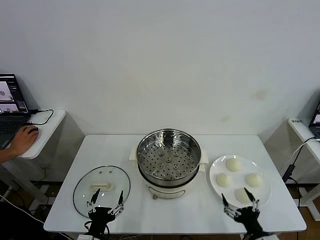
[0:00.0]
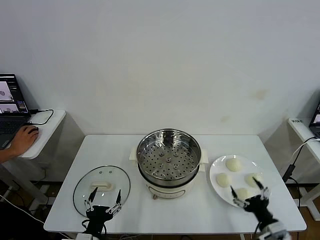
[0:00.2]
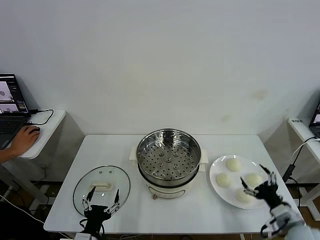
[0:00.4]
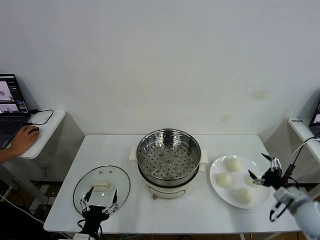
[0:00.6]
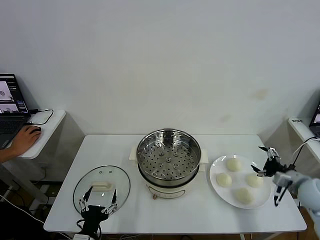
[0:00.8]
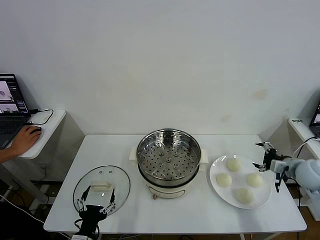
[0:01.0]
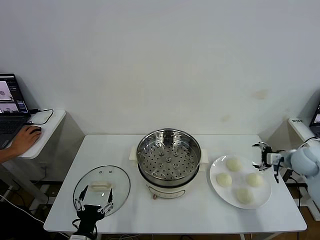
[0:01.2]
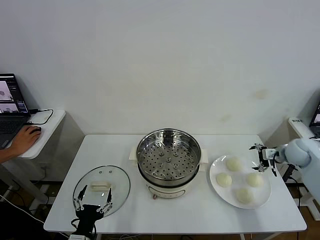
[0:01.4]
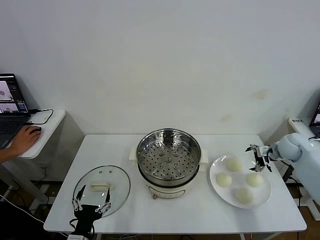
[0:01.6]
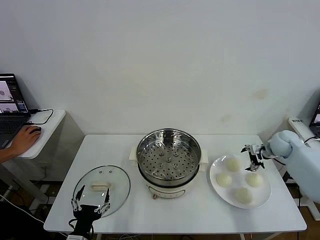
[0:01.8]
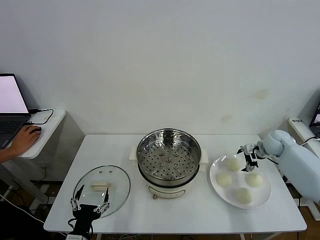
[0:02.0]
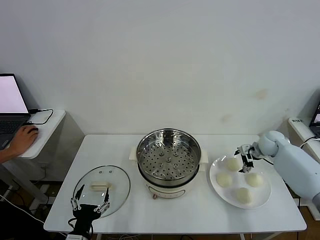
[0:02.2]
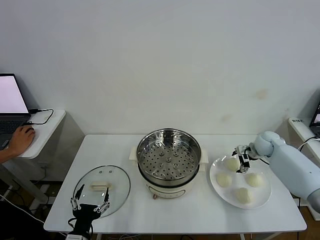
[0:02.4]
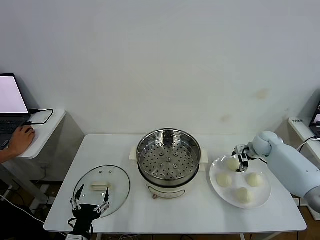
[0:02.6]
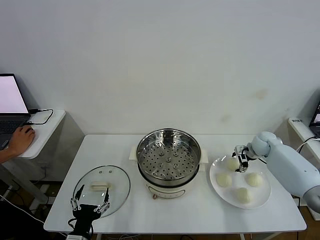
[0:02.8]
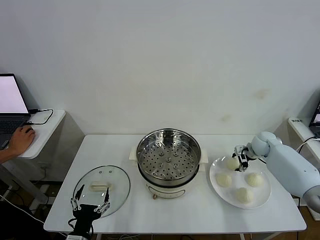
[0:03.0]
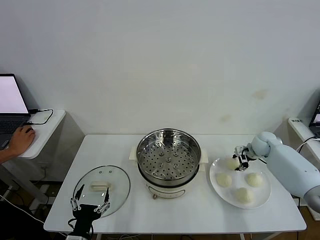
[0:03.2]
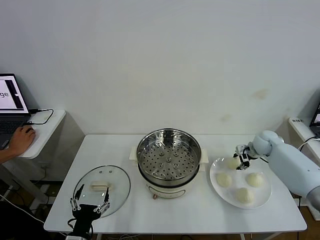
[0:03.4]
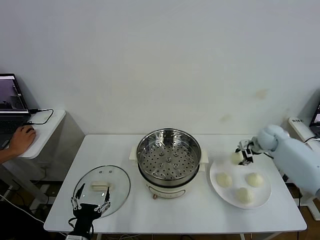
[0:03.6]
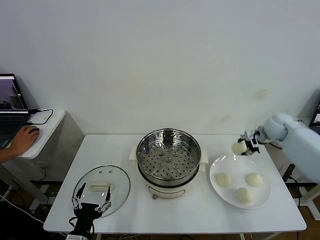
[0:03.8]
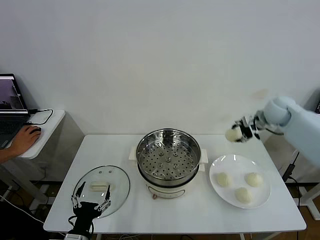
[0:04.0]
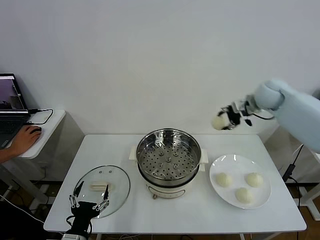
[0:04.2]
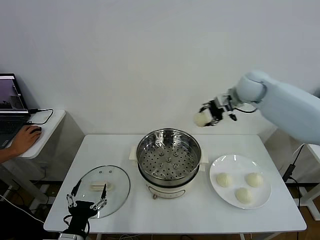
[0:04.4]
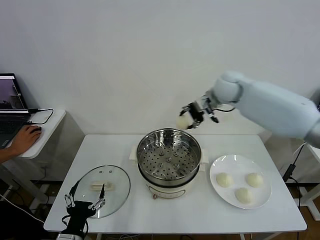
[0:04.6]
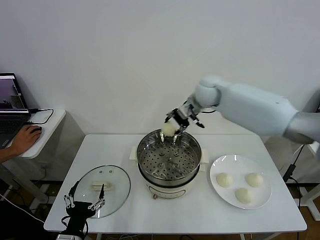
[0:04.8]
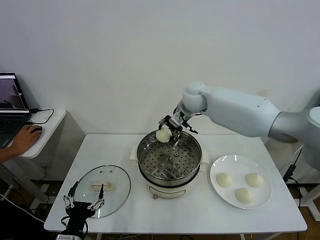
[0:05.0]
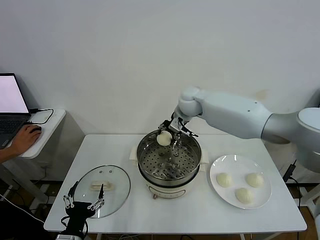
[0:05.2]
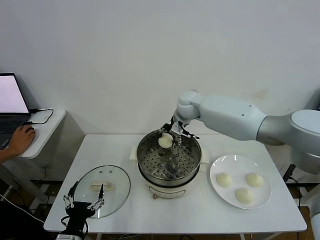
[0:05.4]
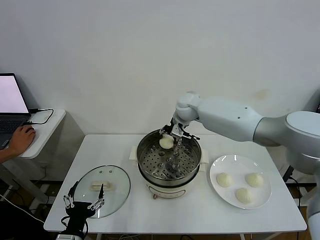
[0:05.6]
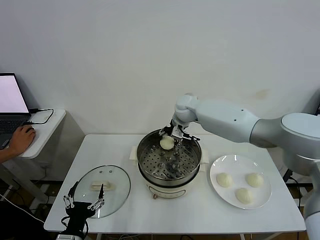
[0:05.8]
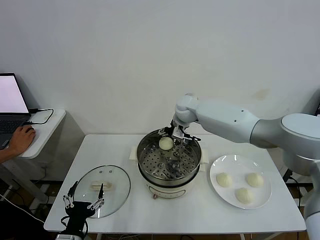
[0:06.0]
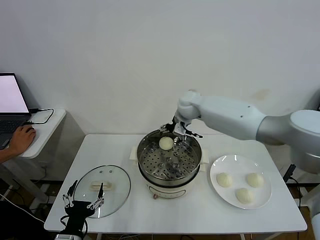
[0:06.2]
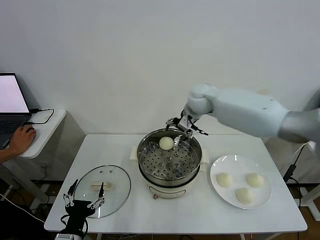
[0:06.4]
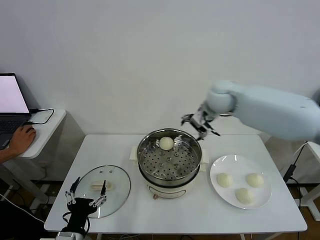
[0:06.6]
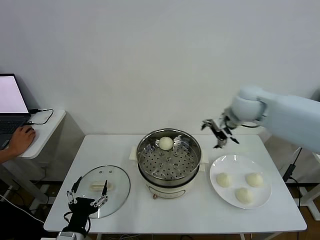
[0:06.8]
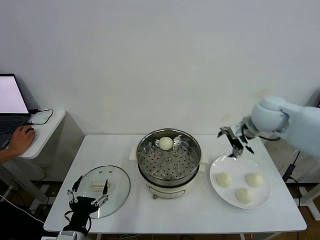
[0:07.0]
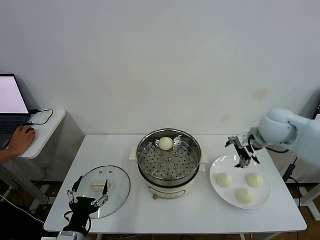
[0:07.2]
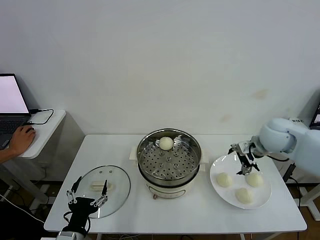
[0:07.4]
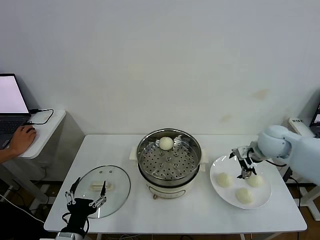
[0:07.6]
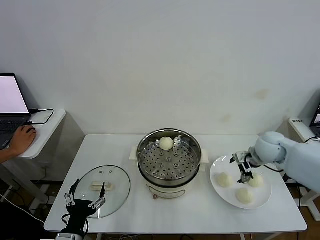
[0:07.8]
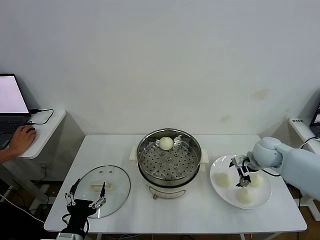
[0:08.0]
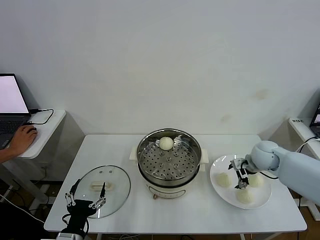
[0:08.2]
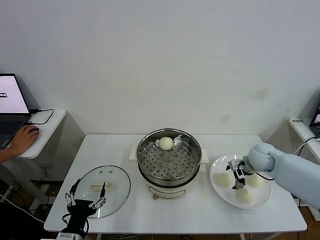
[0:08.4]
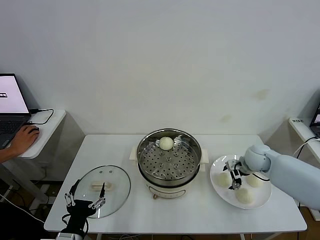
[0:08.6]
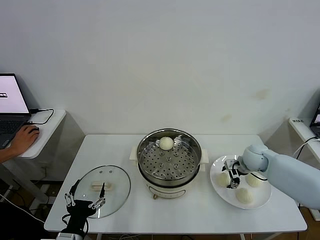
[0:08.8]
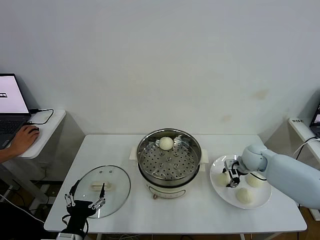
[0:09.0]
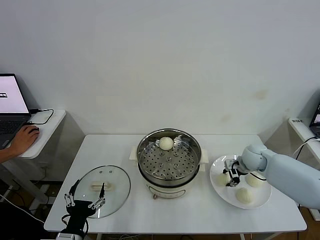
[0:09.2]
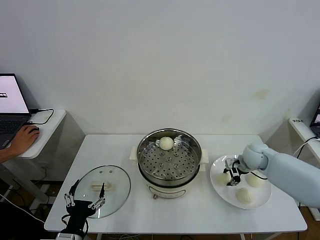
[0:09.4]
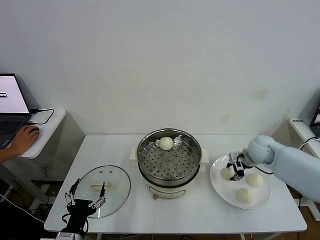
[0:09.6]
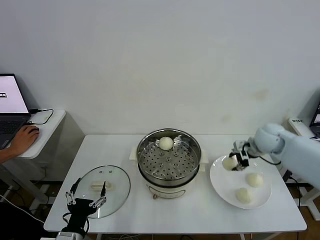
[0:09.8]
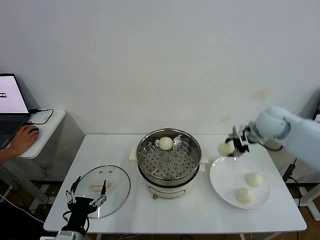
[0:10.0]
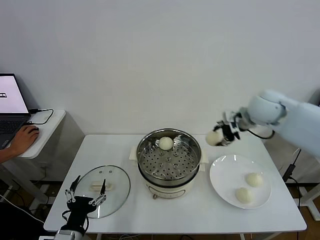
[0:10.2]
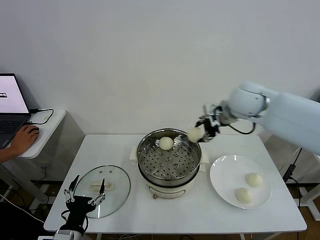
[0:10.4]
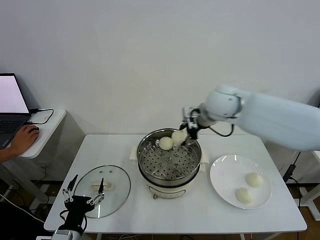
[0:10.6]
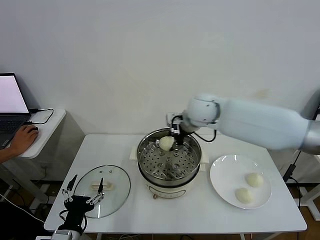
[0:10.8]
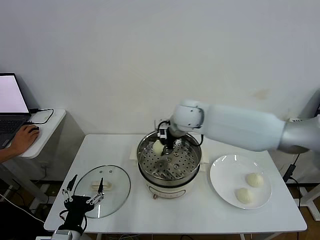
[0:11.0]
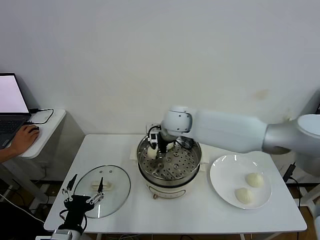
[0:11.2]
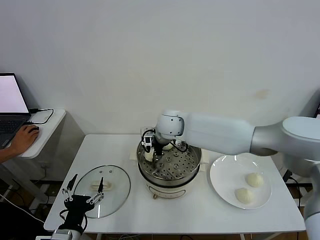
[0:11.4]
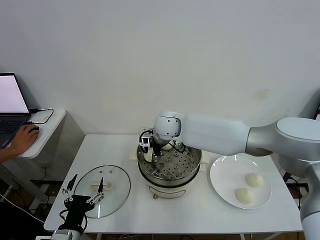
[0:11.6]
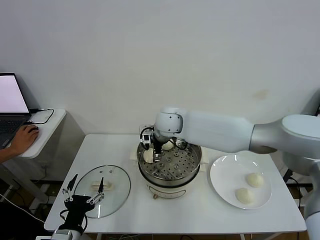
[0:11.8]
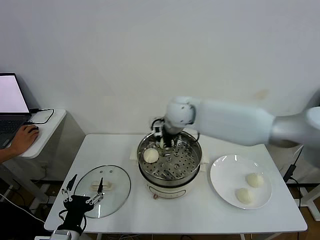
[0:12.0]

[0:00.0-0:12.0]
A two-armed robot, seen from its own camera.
Step, 0:00.0 to 0:03.0: Grasp the baozi in the plate with right gripper.
Step, 0:03.2 to 0:06.2: Place the baozi on the steamer with right gripper.
Step, 0:06.4 to 0:09.0: Grasp the baozi in the plate with right gripper.
Step, 0:09.2 to 0:11.6: Place the baozi on the steamer with right gripper.
0:01.6 to 0:03.0: The right gripper changes place by approximately 10 cm, and closes.
0:03.0 to 0:04.4: The right gripper shifts some 30 cm upward and to the left.
0:04.4 to 0:06.0: The right gripper goes about 15 cm to the left and downward, and opens.
0:06.0 to 0:07.6: The right gripper travels to the right and backward by about 30 cm.
0:07.6 to 0:09.0: The right gripper shifts roughly 10 cm downward, and closes its fingers.
0:09.0 to 0:10.4: The right gripper goes roughly 30 cm upward and to the left.
0:10.4 to 0:12.0: The right gripper shifts some 10 cm to the left, and opens.

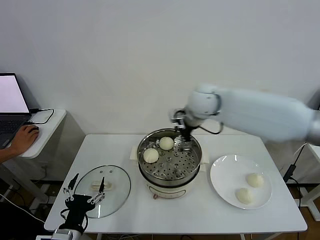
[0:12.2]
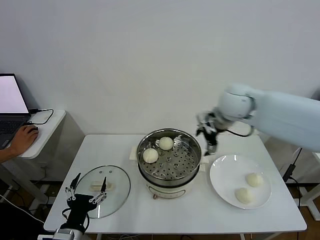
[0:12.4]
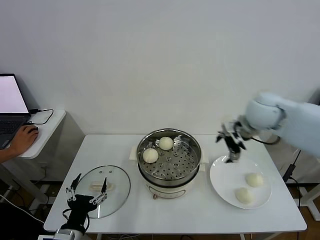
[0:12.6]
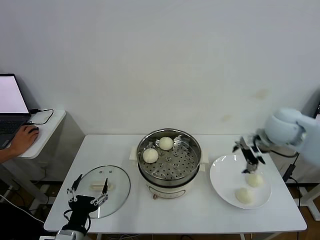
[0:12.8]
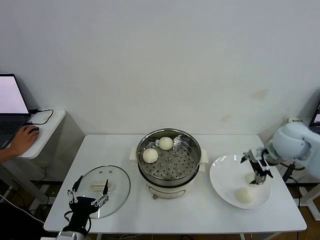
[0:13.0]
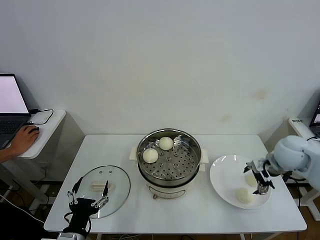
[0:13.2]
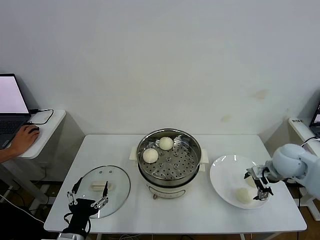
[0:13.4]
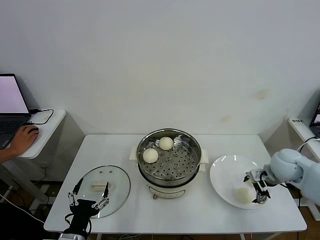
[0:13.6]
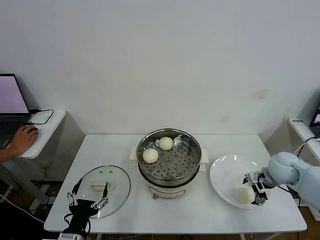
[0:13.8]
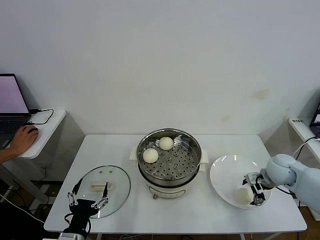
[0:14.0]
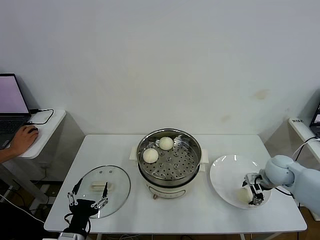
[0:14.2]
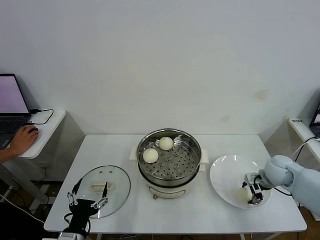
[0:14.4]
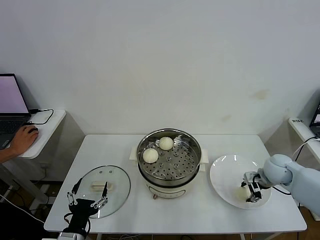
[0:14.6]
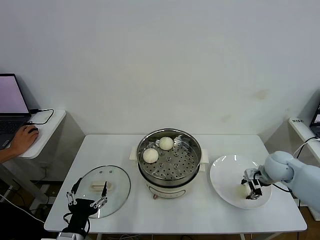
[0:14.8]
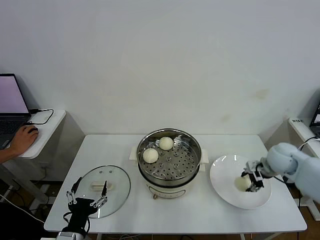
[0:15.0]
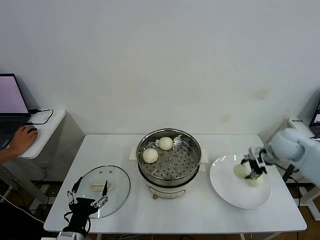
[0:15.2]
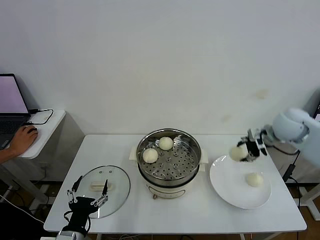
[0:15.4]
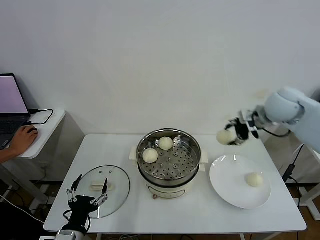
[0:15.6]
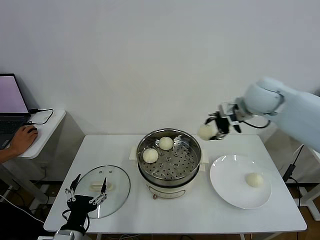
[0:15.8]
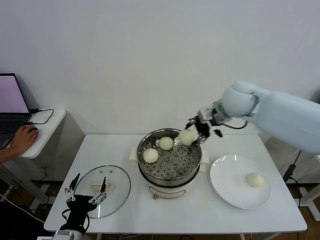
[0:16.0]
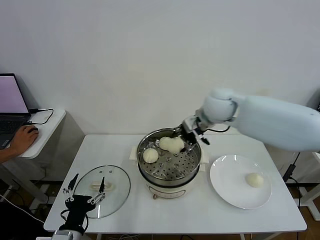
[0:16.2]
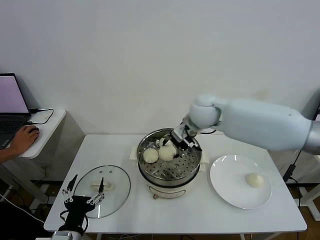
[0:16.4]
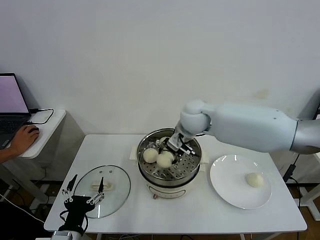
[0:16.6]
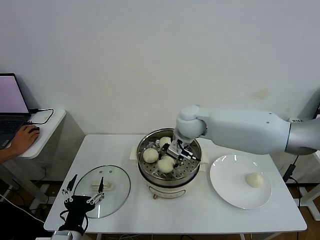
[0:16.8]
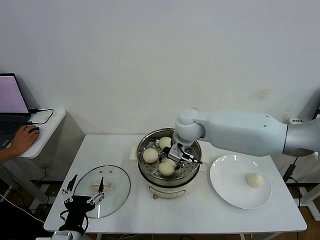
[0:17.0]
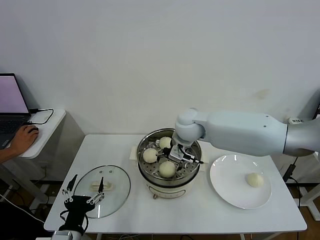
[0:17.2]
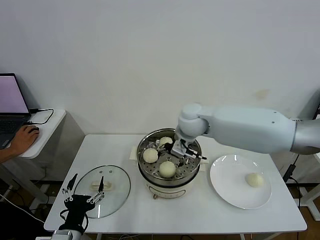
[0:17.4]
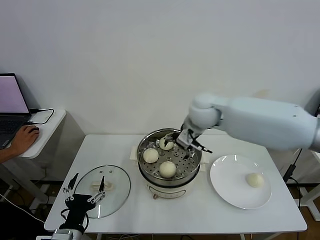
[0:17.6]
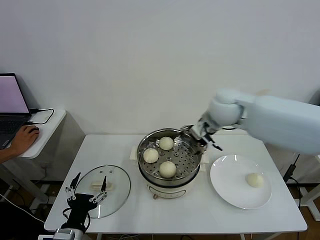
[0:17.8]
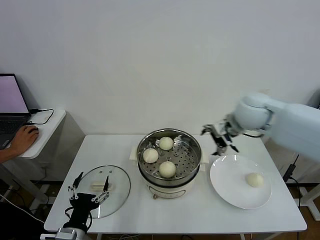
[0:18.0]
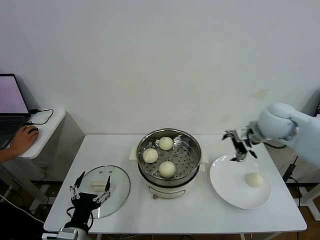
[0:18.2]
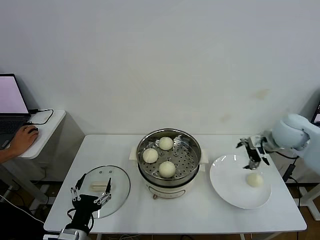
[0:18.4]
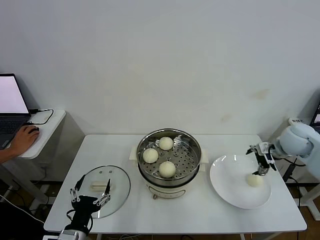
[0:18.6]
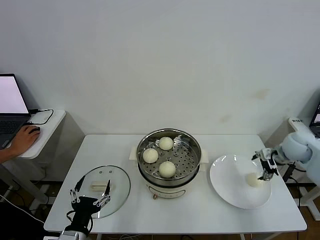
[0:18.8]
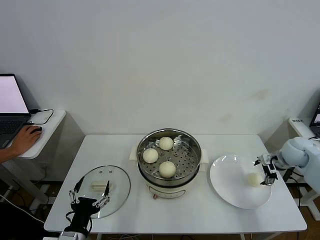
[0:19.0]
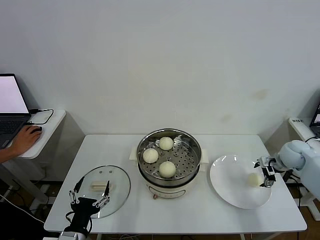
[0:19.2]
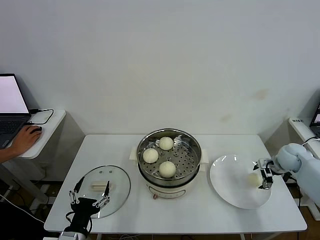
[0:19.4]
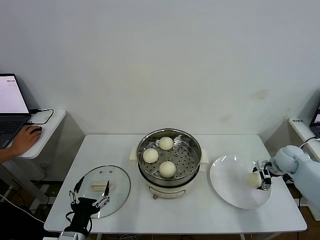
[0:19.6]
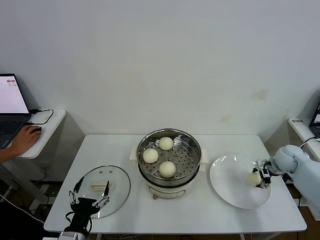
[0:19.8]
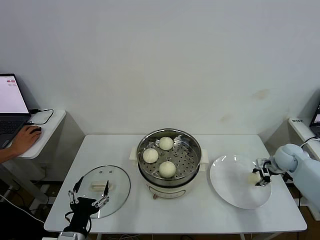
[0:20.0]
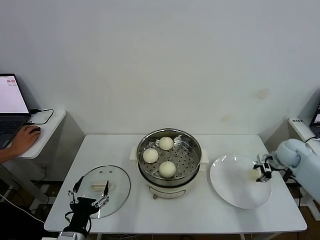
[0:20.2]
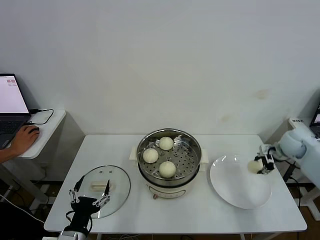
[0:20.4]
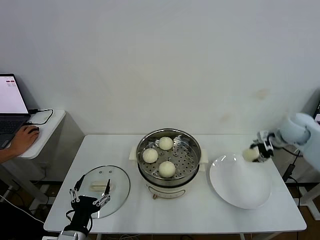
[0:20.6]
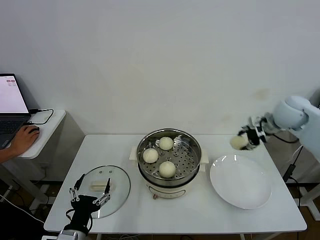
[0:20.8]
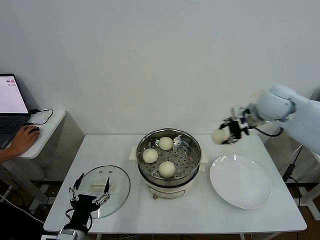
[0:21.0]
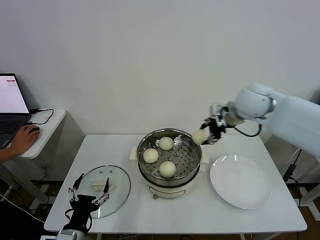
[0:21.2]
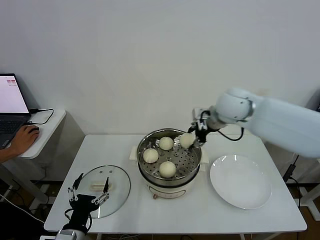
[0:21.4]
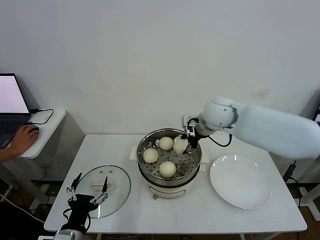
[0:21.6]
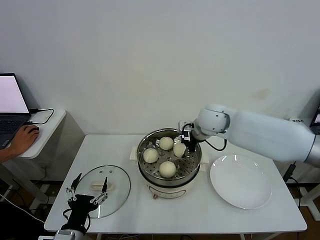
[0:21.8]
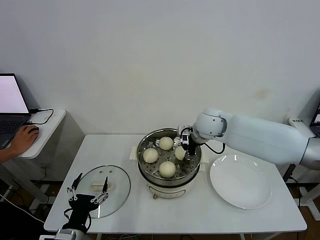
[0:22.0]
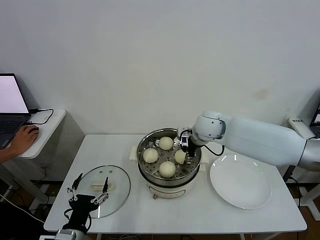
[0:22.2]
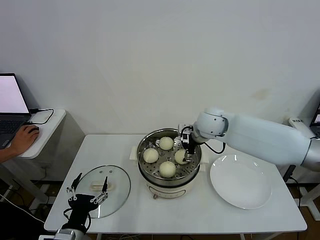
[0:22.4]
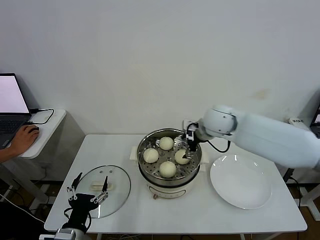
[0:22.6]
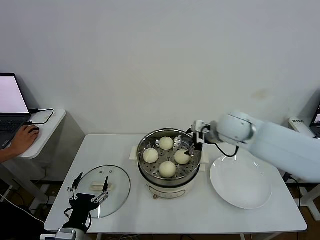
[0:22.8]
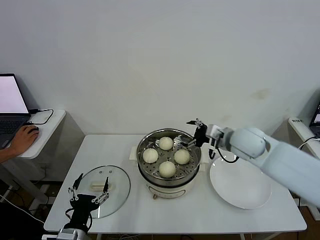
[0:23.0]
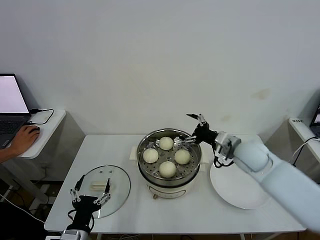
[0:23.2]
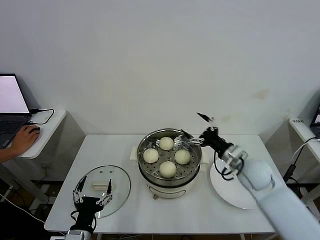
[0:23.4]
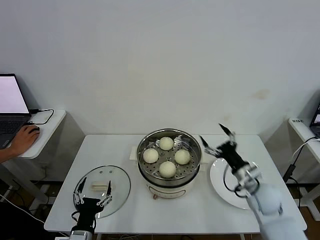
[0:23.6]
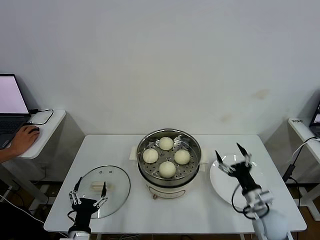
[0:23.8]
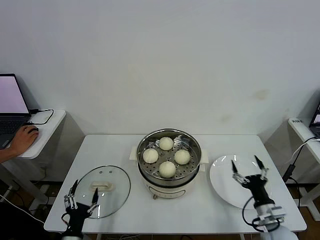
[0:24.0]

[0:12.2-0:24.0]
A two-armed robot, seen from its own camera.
Step, 0:12.2 to 0:14.4: Grasp the baozi in the plate with right gripper.
Step, 0:14.6 to 0:17.2: Place the baozi on the steamer with right gripper.
Step, 0:17.4 to 0:19.8: Grasp the baozi in the plate with right gripper.
Step, 0:20.0 to 0:22.4: Place the baozi on the steamer with right gripper.
0:12.2 to 0:13.6: The right gripper heads to the right, downward and backward, covering about 30 cm.
0:13.6 to 0:15.2: The right gripper travels upward and forward by about 10 cm, and closes.
0:15.2 to 0:16.6: The right gripper moves to the left, about 30 cm.
0:16.6 to 0:18.2: The right gripper goes about 25 cm to the right, and opens.
0:18.2 to 0:19.6: The right gripper is displaced downward and to the right by some 25 cm.
0:19.6 to 0:21.0: The right gripper goes approximately 30 cm upward and to the left, and closes its fingers.
0:21.0 to 0:22.6: The right gripper goes about 15 cm to the left and downward, and opens its fingers.
0:22.6 to 0:24.0: The right gripper is displaced backward, downward and to the right by about 40 cm. The left gripper moves downward, roughly 10 cm.
